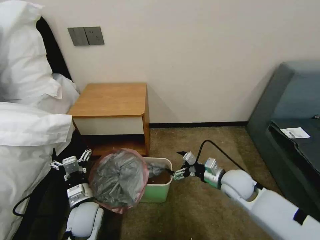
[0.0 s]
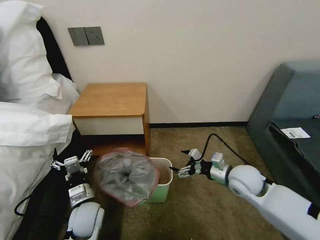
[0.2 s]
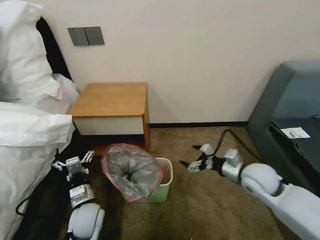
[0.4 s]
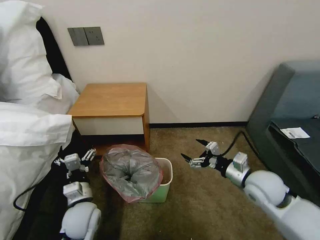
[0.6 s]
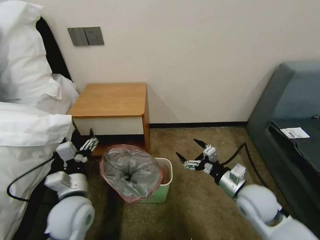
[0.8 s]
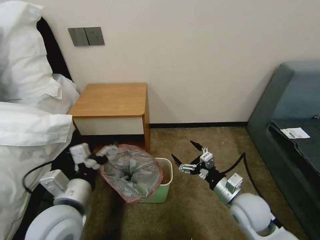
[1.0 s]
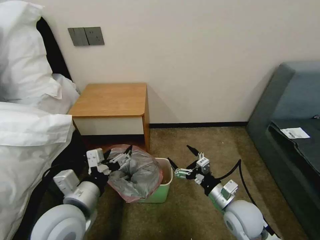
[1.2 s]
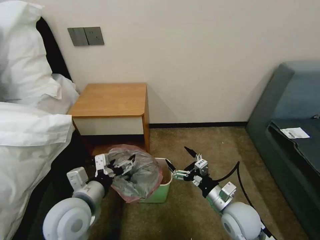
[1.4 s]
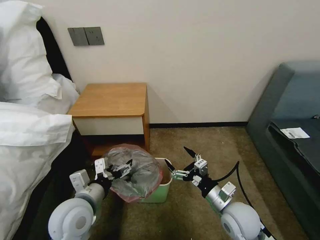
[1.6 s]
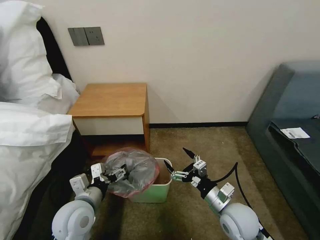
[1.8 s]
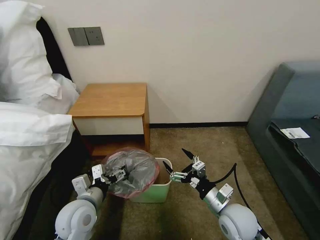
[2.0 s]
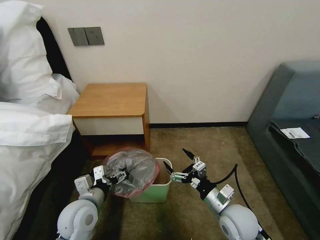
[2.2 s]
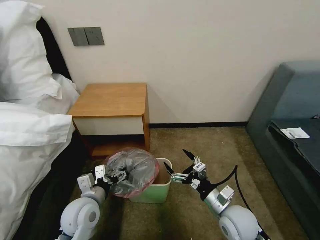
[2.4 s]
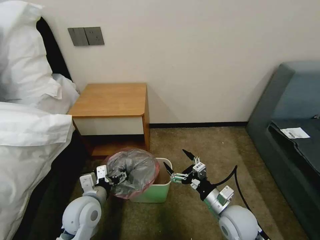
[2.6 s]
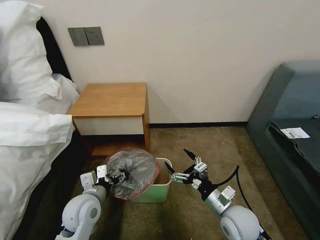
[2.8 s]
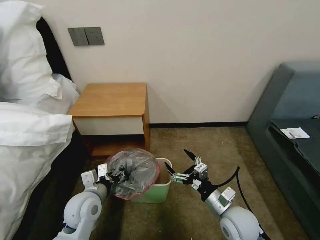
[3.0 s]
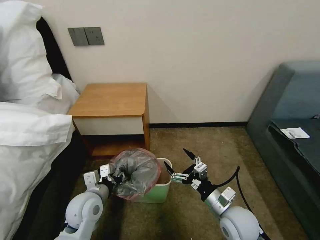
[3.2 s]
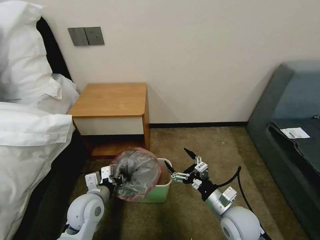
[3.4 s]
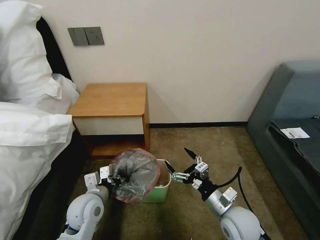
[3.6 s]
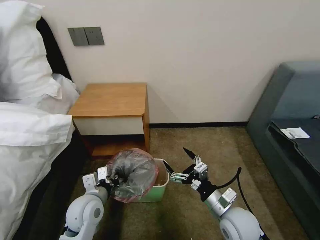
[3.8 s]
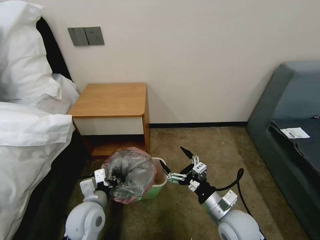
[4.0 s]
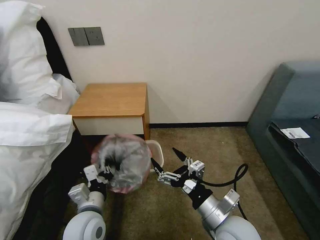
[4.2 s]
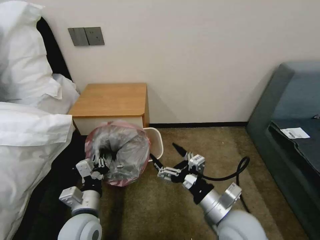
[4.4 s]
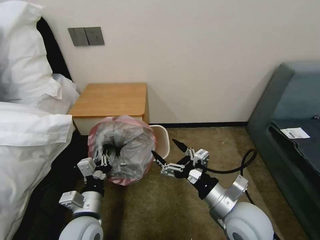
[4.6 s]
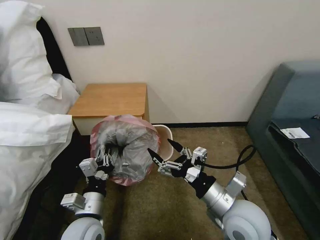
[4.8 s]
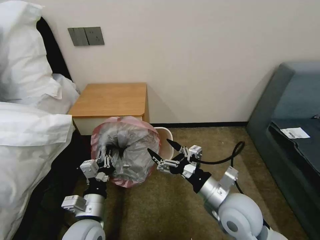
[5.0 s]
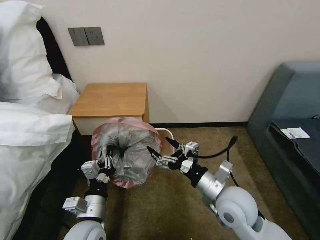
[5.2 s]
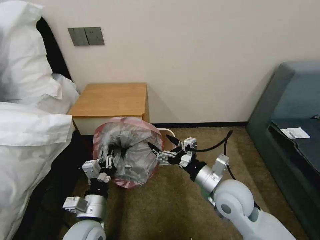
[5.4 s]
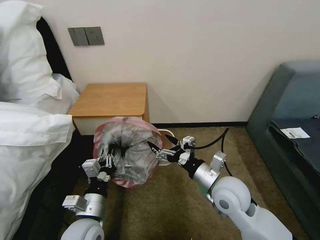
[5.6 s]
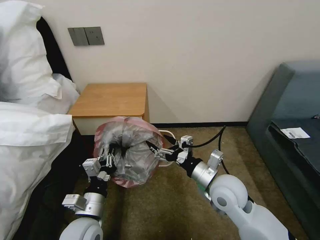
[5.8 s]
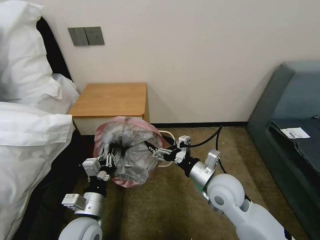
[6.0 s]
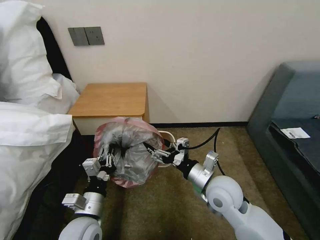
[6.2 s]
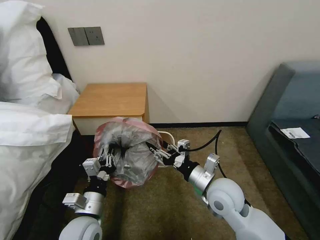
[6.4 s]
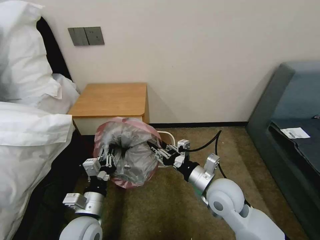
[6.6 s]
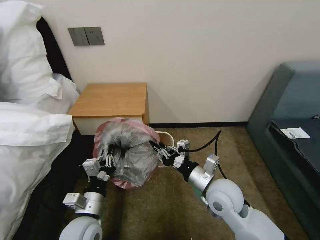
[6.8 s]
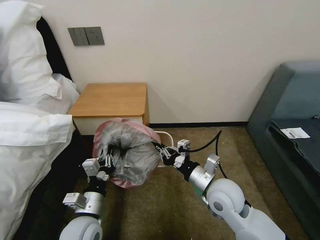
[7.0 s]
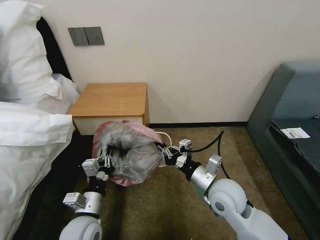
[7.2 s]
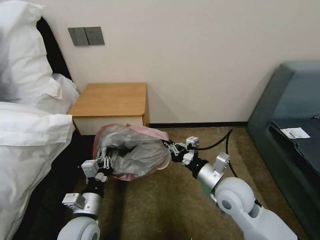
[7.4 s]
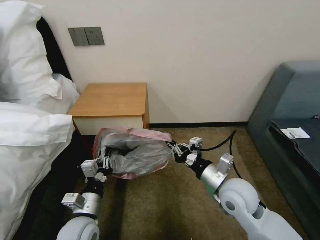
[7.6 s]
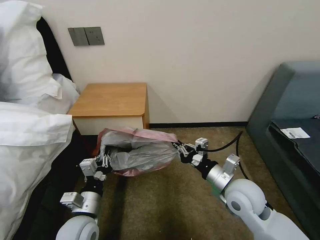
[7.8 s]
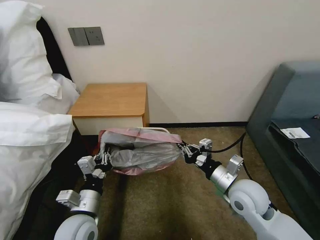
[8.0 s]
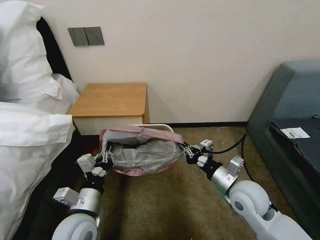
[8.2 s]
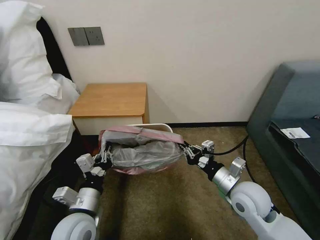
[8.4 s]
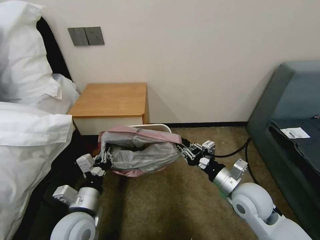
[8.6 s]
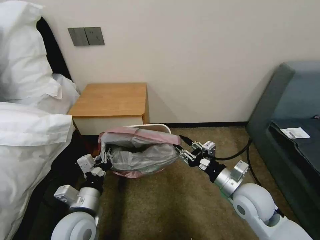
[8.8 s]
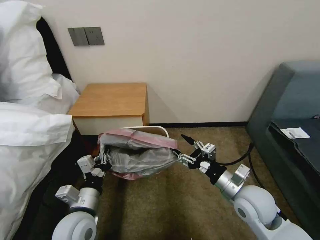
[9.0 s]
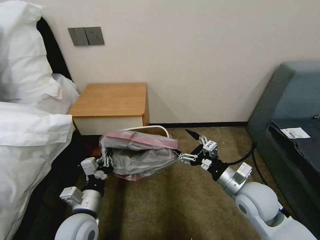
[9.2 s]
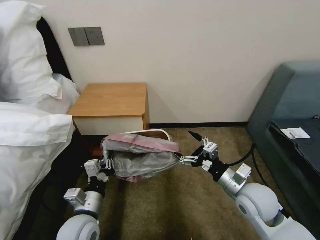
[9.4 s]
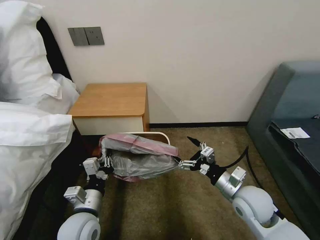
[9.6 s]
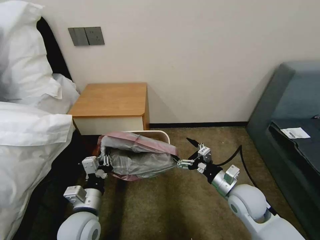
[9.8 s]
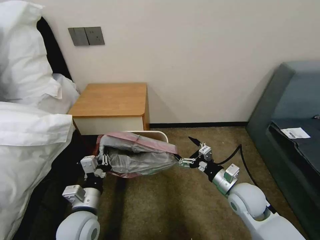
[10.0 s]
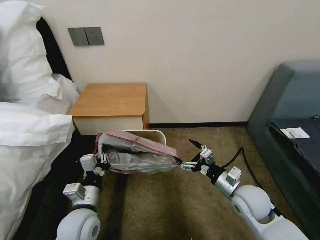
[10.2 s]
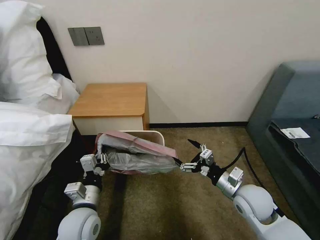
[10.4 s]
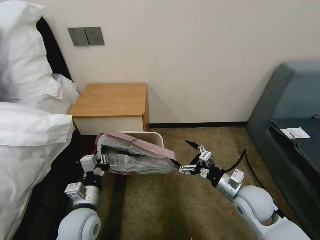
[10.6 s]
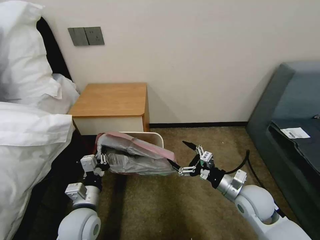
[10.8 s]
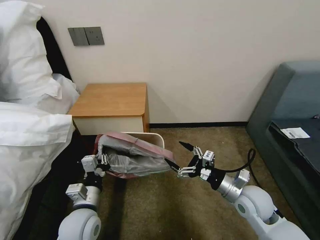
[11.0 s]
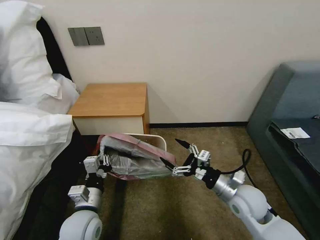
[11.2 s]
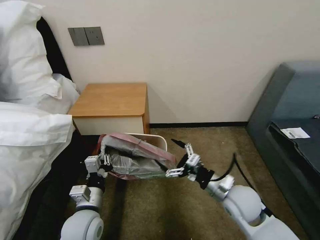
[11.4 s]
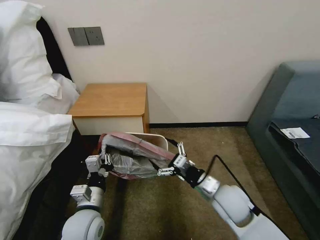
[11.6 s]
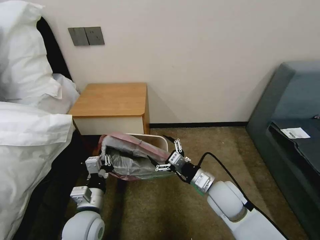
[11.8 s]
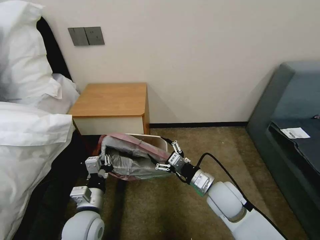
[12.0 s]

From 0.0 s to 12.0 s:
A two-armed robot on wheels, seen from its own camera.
Task of the whole recording: Pick up the garbage bag from the table and place it over the trash can.
From 0.0 s to 1.6 s: The right gripper shifts roughly 10 cm backward; the left gripper shifts approximately 10 cm upward.
From 1.6 s to 3.0 s: The left gripper moves downward, roughly 5 cm, and closes up.
From 3.0 s to 4.4 s: The left gripper travels backward by roughly 5 cm, and closes, while the right gripper moves upward, about 10 cm.
From 4.4 s to 6.0 s: The right gripper travels forward by about 10 cm.
From 6.0 s to 7.6 s: The right gripper closes.
From 7.6 s to 9.0 s: The right gripper opens.
From 9.0 s to 10.4 s: The grippers move only a little.
From 10.4 s to 12.0 s: The right gripper heads to the left, covering roughly 10 cm.

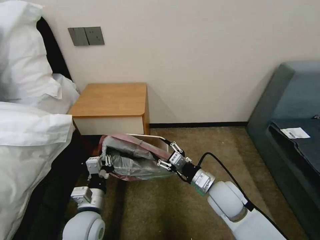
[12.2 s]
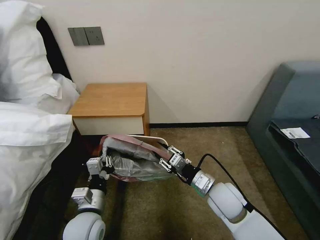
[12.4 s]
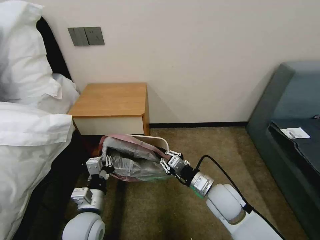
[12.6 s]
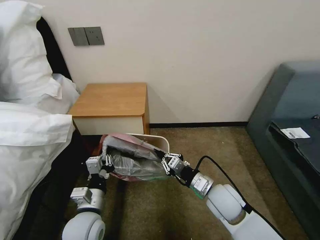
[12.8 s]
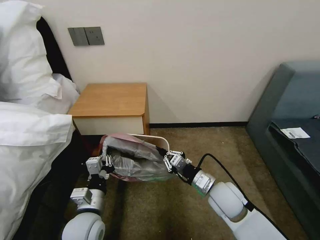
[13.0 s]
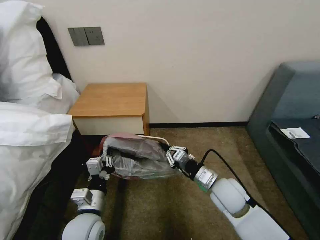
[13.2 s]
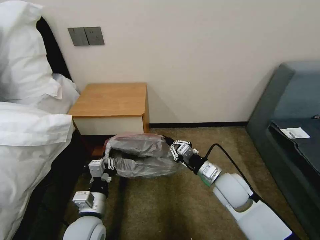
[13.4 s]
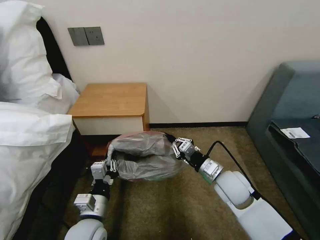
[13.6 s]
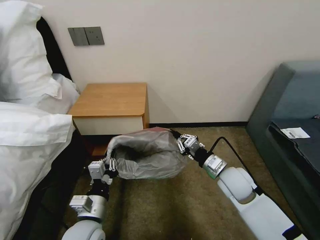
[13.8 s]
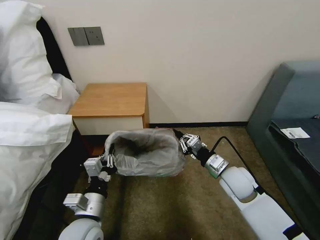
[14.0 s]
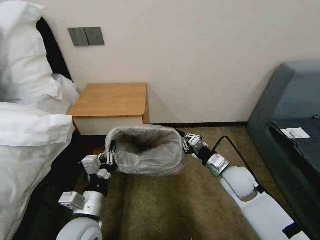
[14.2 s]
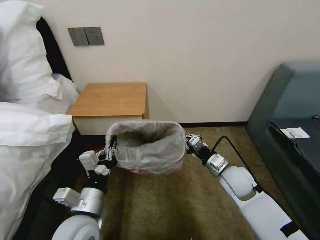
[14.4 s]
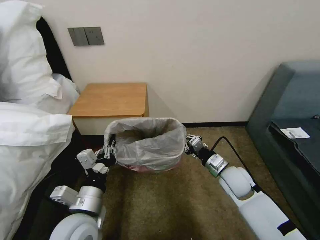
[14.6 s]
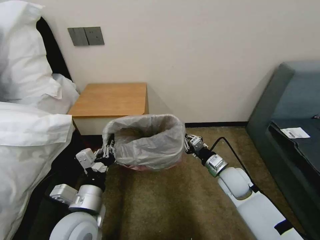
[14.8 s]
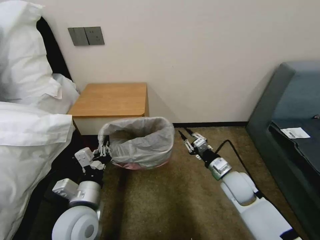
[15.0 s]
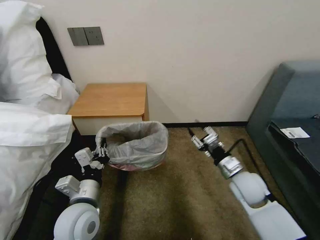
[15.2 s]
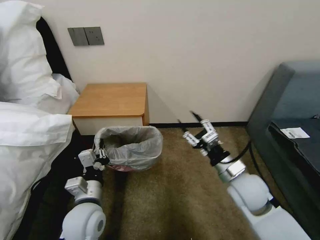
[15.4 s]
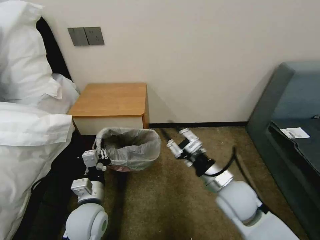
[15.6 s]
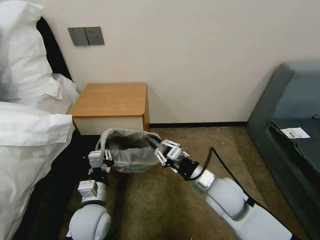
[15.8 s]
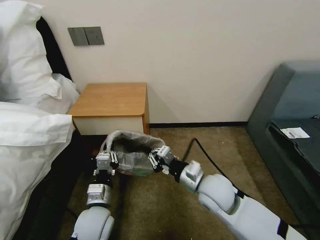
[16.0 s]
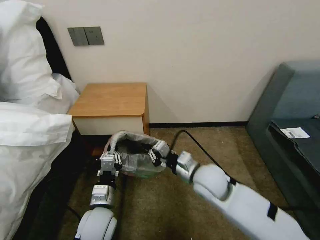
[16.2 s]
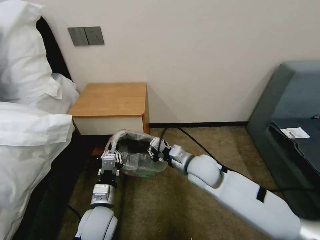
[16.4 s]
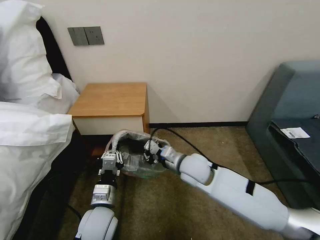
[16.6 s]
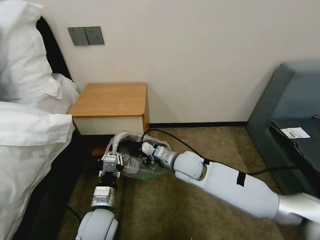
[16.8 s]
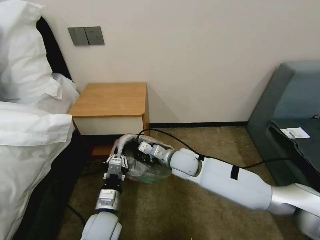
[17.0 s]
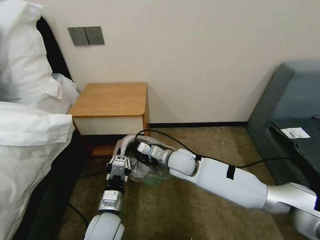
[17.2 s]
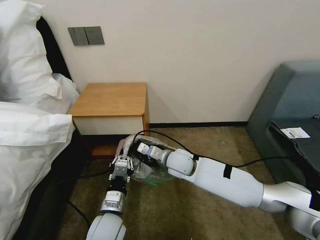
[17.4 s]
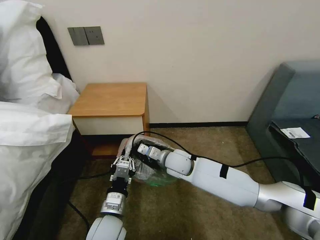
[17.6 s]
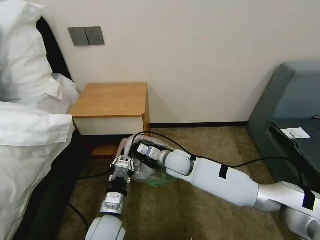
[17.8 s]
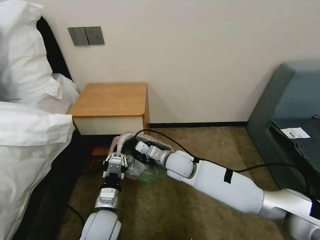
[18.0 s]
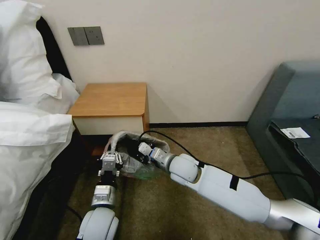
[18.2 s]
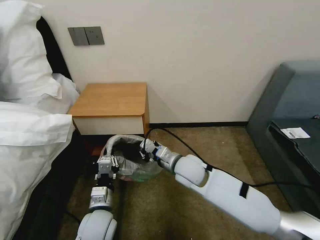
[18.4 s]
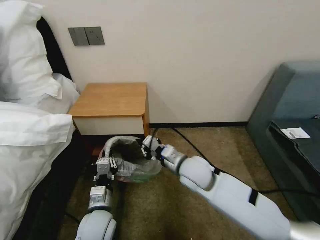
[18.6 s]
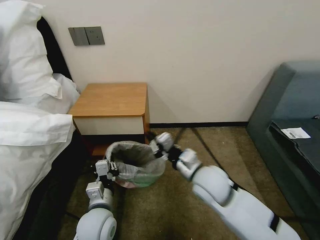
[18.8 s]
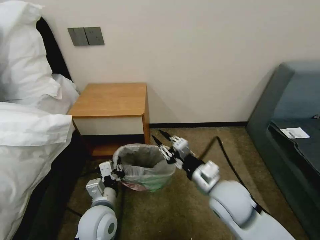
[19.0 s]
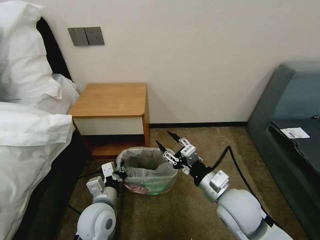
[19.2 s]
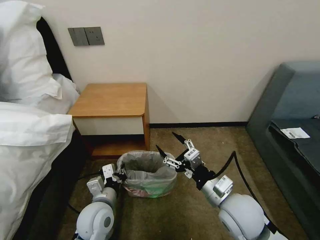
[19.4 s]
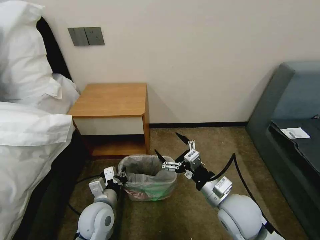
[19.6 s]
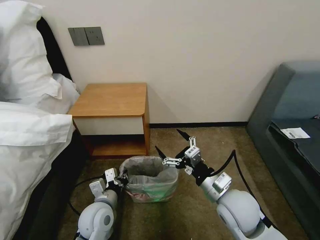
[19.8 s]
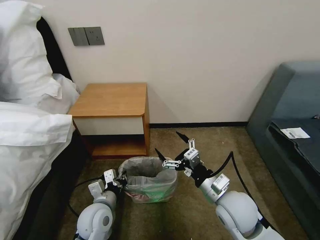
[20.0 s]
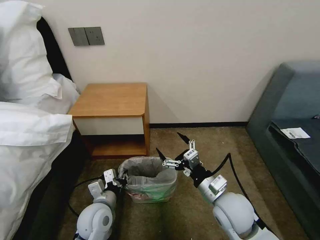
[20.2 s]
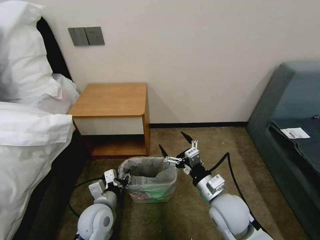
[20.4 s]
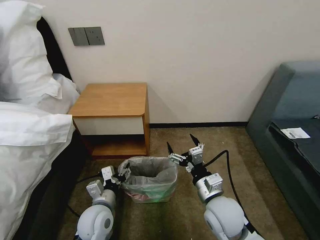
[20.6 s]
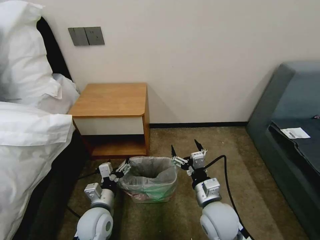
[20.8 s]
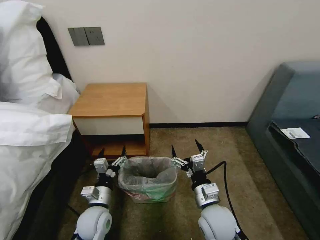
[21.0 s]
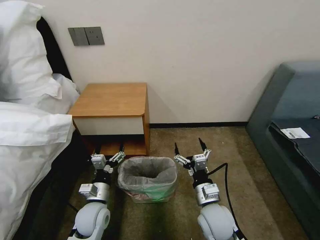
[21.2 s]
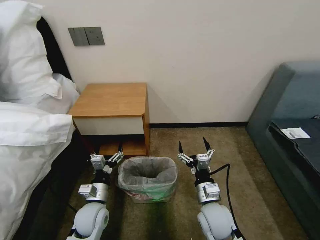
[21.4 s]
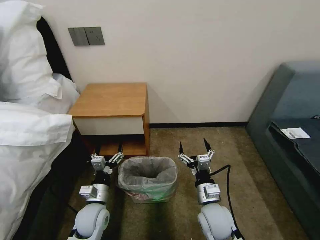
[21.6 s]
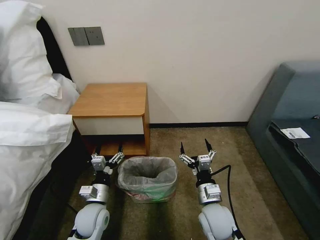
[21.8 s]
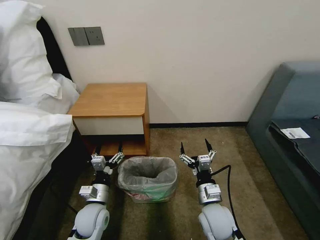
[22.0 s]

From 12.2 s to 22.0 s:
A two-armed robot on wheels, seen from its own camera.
Task of the whole recording: Pick up the garbage bag from the table and place it over the trash can.
From 12.2 s to 13.6 s: The right gripper closes its fingers.
From 13.6 s to 15.0 s: The left gripper is displaced upward by some 5 cm. The right gripper changes place by approximately 5 cm.
From 15.0 s to 16.4 s: The right gripper moves to the left and upward, approximately 15 cm, while the left gripper travels downward by approximately 5 cm.
From 16.4 s to 17.8 s: The right gripper heads to the left and forward, covering roughly 10 cm.
From 17.8 s to 19.2 s: The right gripper goes approximately 20 cm backward and to the right, and opens its fingers.
From 19.2 s to 20.6 s: The left gripper opens. The right gripper moves downward, roughly 5 cm, and opens its fingers.
From 20.6 s to 22.0 s: The left gripper shifts by approximately 5 cm. Meanwhile the right gripper goes some 5 cm downward.
